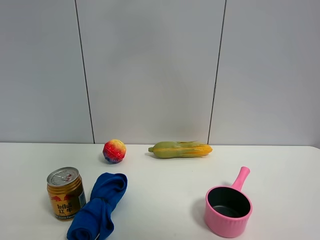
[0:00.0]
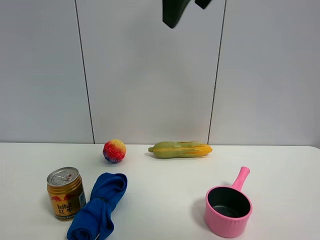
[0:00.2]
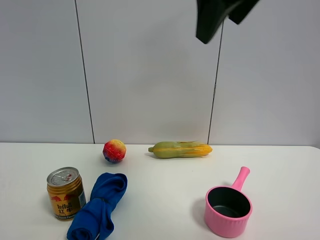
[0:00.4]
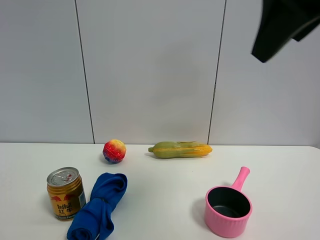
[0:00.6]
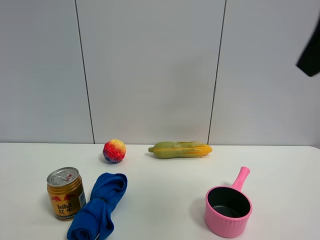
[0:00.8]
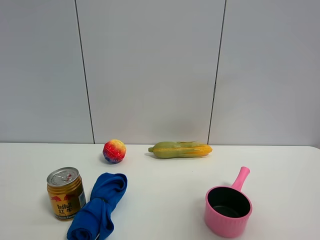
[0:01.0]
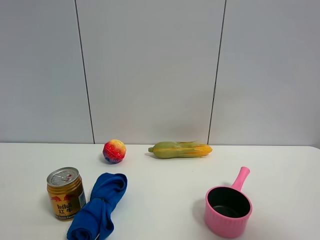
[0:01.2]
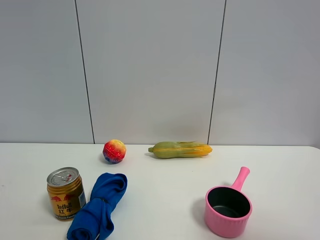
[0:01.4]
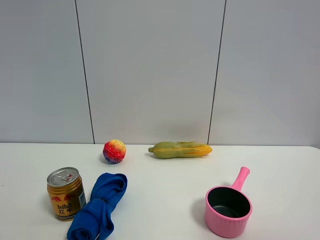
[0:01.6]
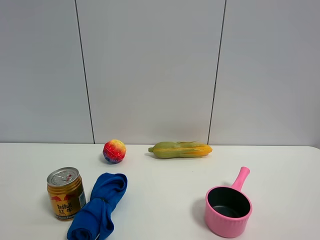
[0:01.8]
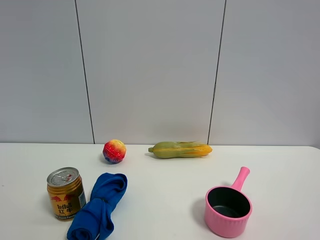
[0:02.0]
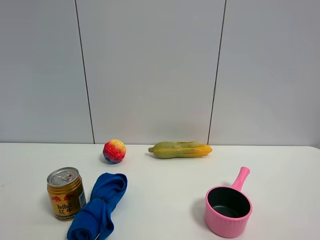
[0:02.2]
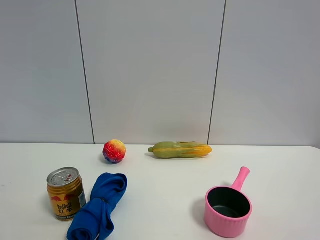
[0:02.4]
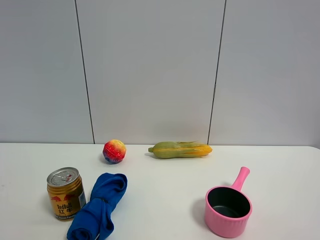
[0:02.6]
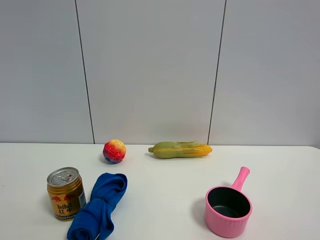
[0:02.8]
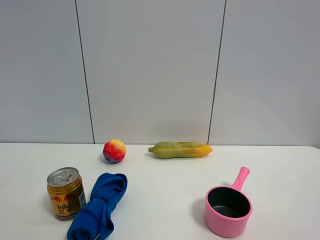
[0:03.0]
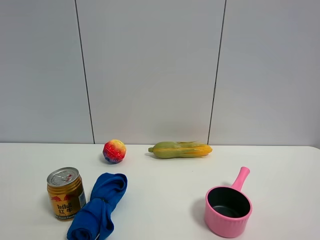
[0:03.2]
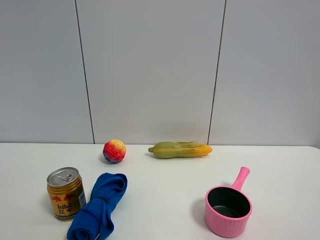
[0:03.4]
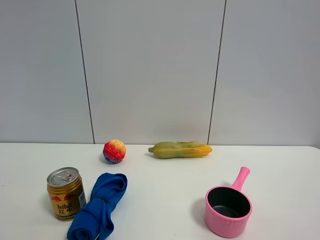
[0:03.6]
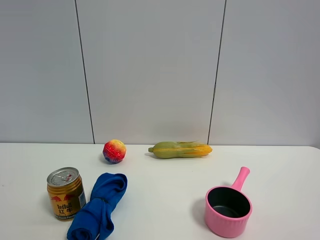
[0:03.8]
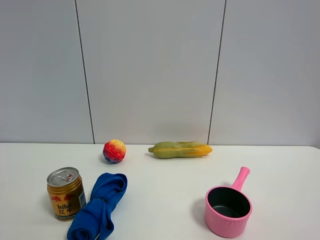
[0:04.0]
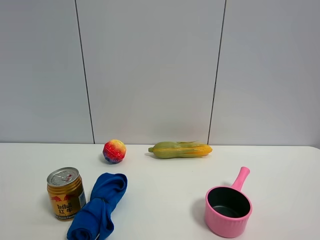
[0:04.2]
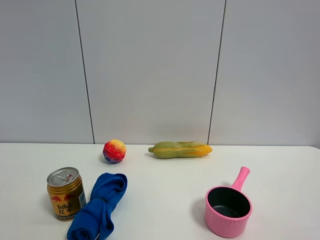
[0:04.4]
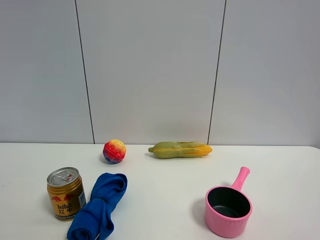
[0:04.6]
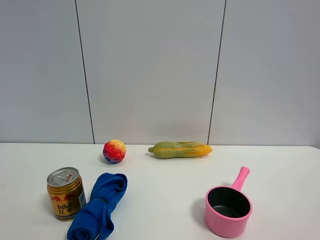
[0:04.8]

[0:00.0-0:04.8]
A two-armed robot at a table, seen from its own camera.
Task of the whole recording: the gripper move the object.
0:00.0 to 0:01.6: The right gripper heads to the right, backward and downward, covering about 40 cm.
0:03.2 to 0:04.8: Both grippers stay put.

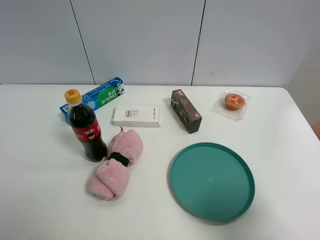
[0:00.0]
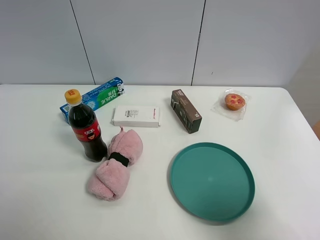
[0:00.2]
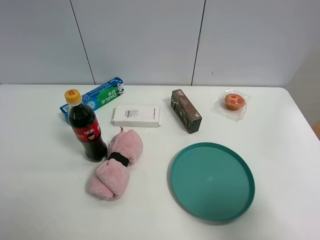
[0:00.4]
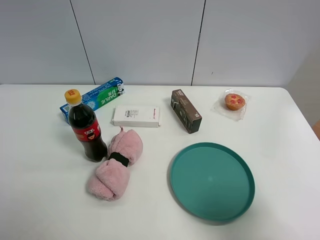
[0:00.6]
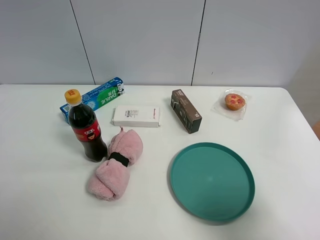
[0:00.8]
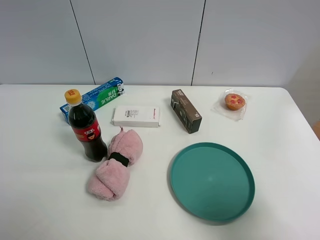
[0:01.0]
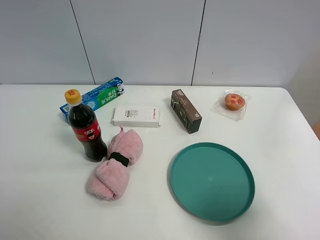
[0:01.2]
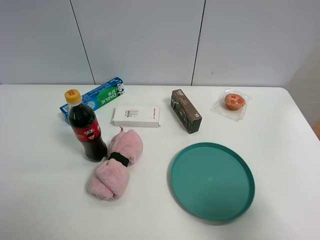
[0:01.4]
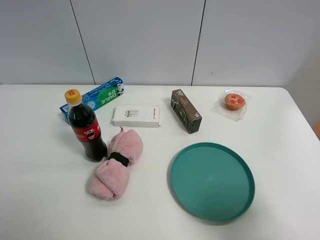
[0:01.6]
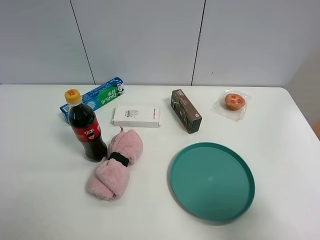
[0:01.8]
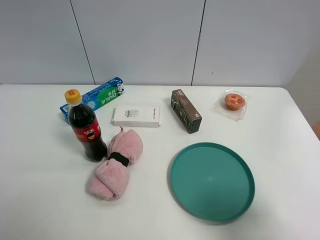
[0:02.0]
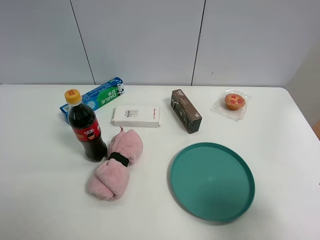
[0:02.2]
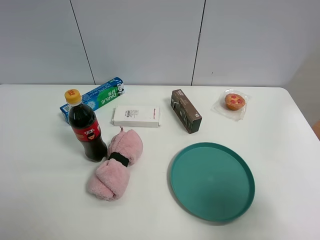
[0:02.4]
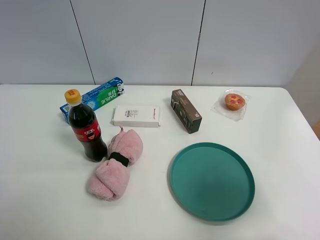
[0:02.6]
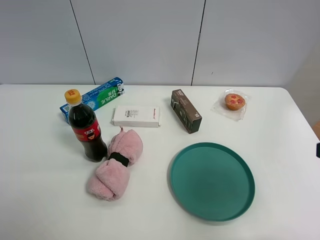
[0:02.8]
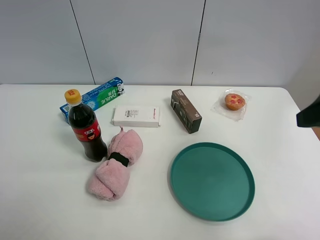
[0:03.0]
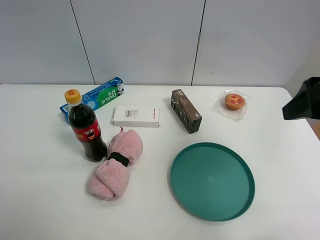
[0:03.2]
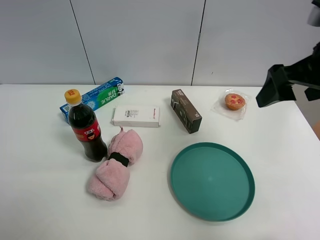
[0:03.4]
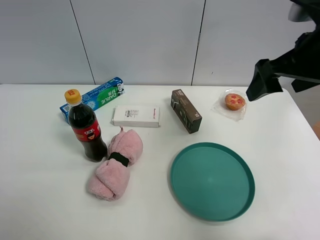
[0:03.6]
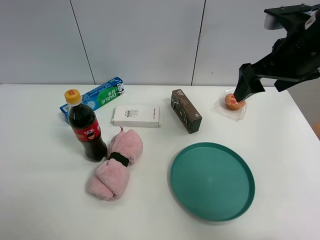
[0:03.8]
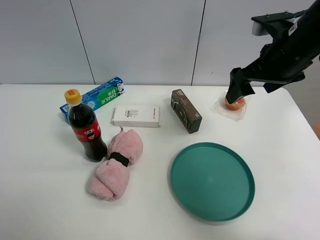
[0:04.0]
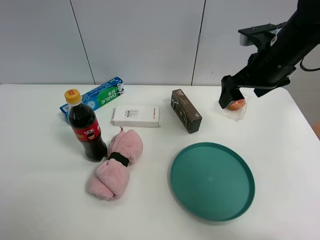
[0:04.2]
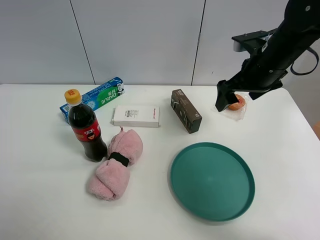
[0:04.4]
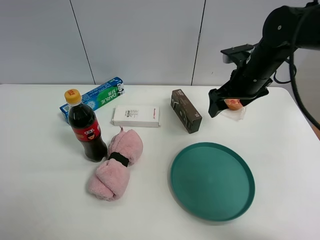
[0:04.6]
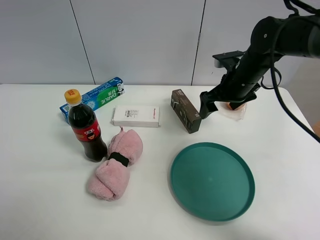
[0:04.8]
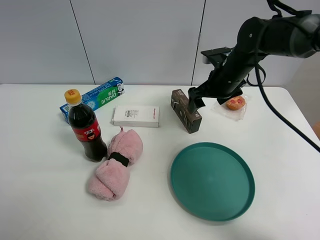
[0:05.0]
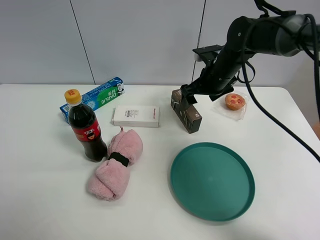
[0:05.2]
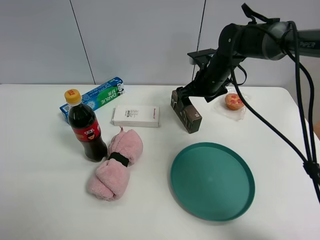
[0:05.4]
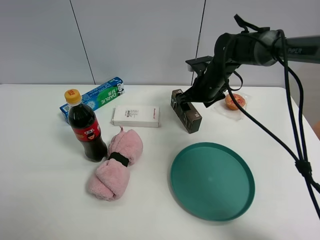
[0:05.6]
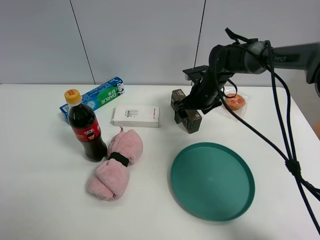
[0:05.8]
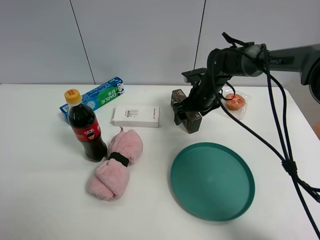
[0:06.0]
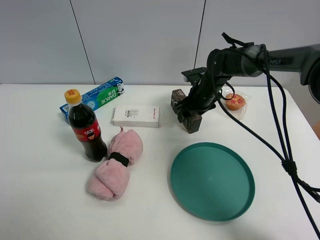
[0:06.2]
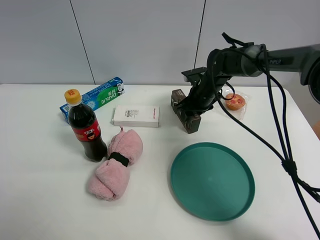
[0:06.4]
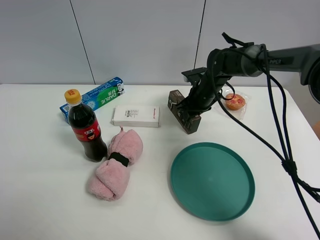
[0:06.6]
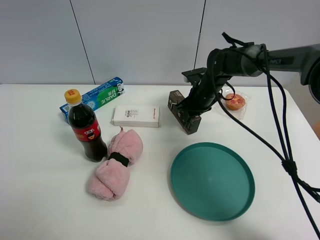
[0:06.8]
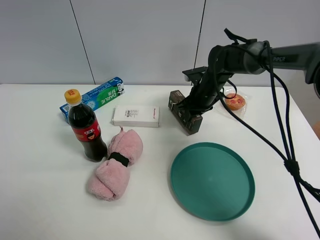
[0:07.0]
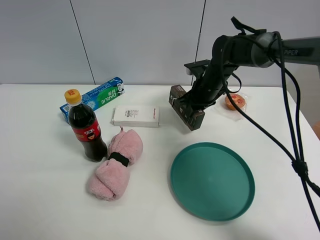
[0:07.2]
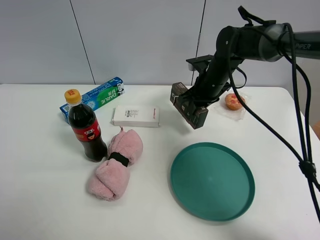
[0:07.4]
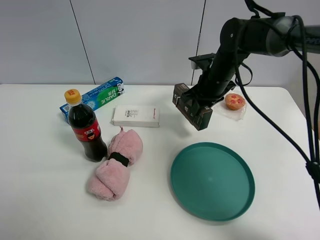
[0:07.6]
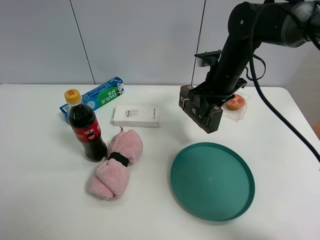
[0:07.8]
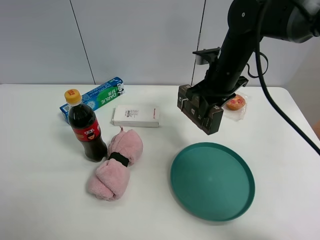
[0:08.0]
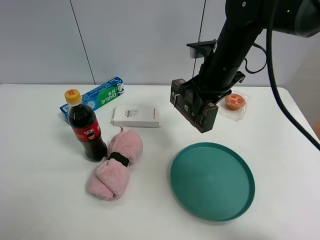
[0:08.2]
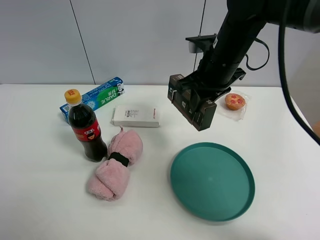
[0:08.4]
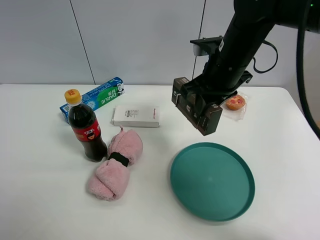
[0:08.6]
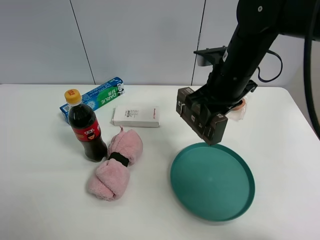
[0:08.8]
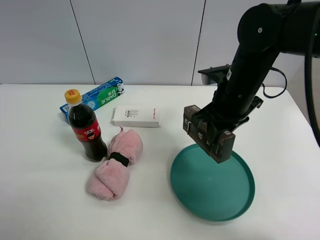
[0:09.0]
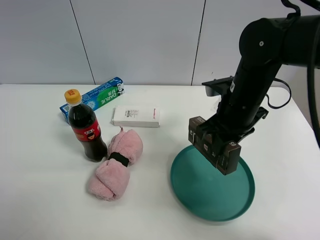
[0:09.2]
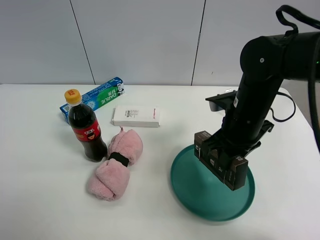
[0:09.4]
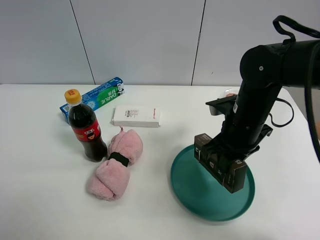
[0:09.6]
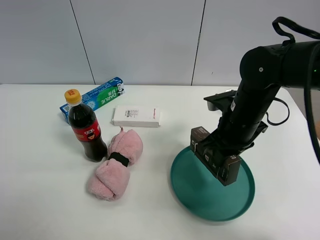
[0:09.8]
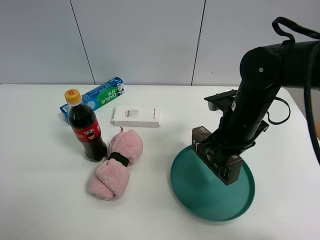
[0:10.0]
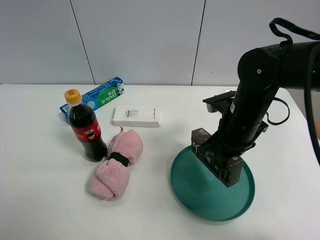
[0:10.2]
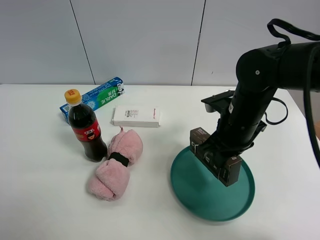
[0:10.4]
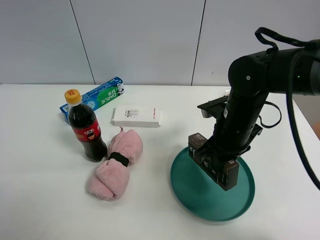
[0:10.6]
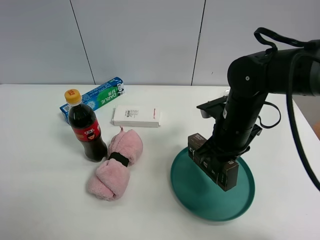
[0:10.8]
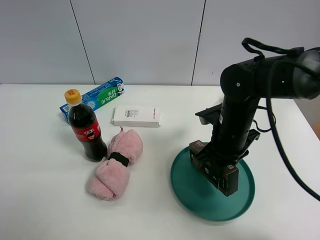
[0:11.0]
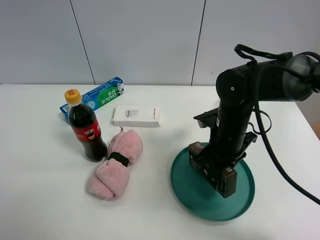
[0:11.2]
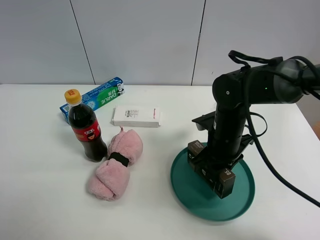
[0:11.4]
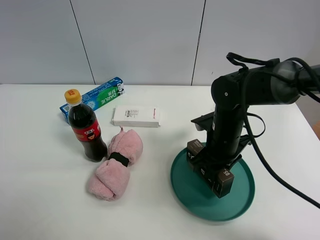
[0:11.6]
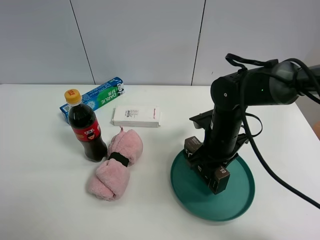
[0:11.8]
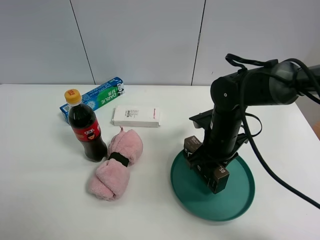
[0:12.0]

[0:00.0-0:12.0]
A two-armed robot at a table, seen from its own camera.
Task of the whole recording: the gripper move the object.
Step, 0:00.0 to 0:06.4: Grasp the brown box with the right gripper.
0:00.0 to 0:01.6: The two grippers keep their place.
0:01.6 to 0:03.0: The right gripper shifts about 15 cm forward and upward.
0:03.0 to 0:04.4: The right gripper is displaced forward and downward by some 20 cm.
0:04.4 to 0:06.0: The right gripper heads downward, forward and to the left, covering some 20 cm.
0:06.0 to 0:07.6: The right gripper moves upward, some 10 cm, and closes its fingers.
0:07.6 to 0:09.0: The right gripper goes about 10 cm backward.
0:09.0 to 0:10.4: The right gripper changes place by approximately 5 cm.
0:10.4 to 0:12.0: The right gripper goes roughly 5 cm downward.

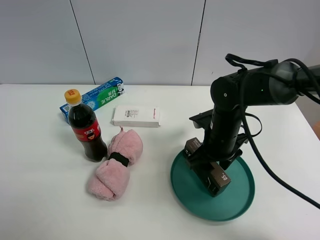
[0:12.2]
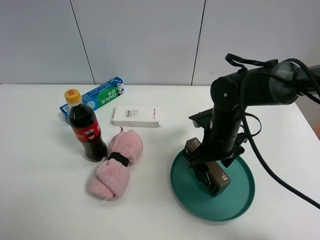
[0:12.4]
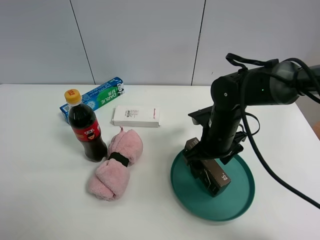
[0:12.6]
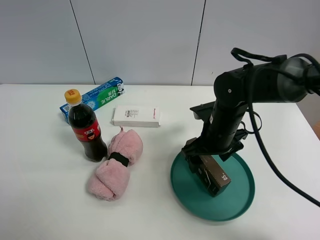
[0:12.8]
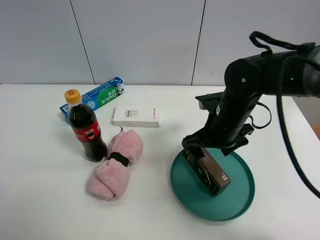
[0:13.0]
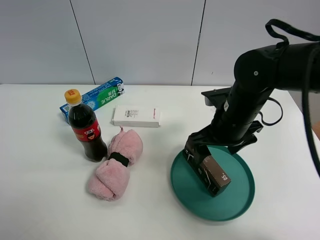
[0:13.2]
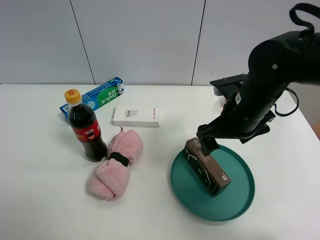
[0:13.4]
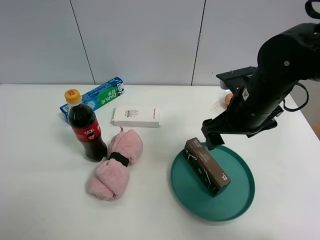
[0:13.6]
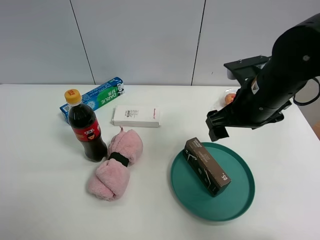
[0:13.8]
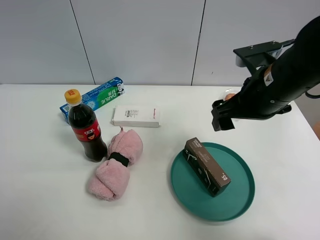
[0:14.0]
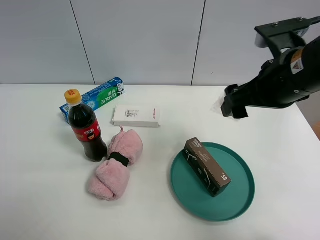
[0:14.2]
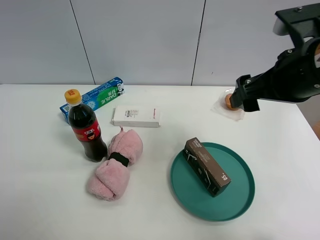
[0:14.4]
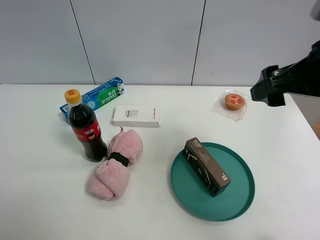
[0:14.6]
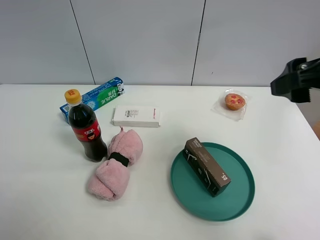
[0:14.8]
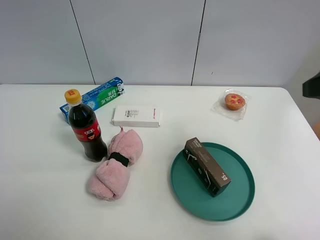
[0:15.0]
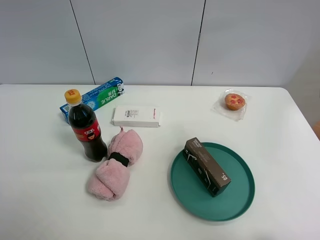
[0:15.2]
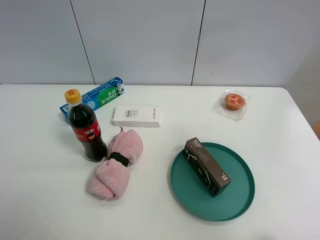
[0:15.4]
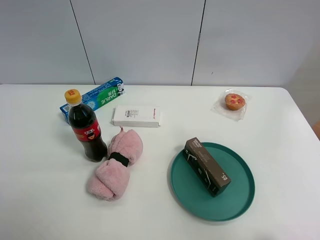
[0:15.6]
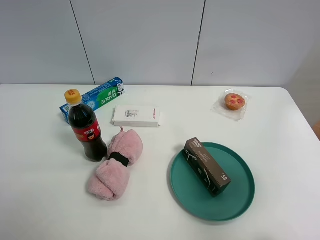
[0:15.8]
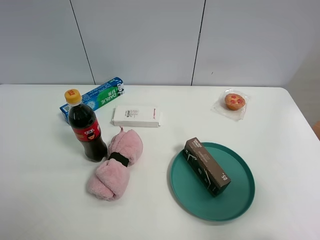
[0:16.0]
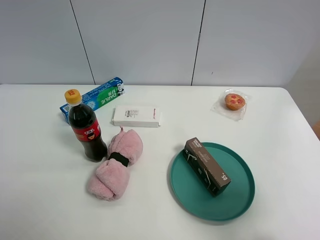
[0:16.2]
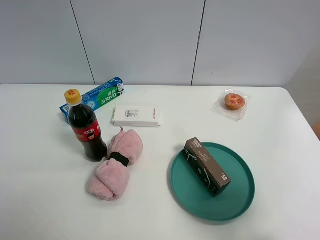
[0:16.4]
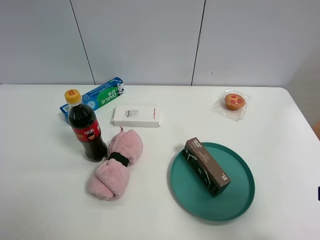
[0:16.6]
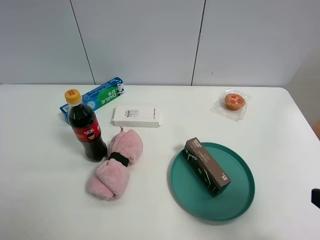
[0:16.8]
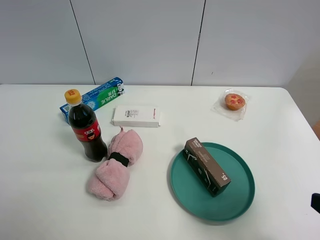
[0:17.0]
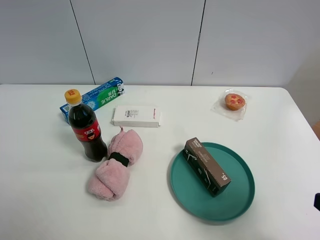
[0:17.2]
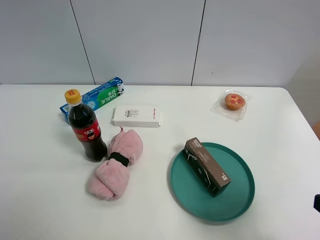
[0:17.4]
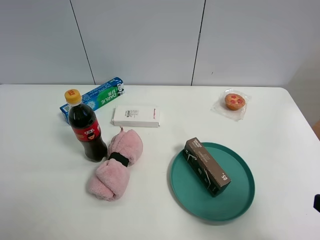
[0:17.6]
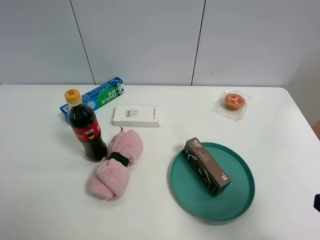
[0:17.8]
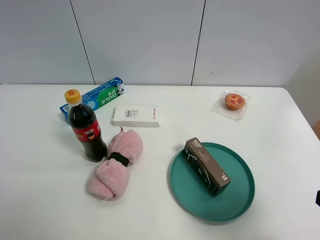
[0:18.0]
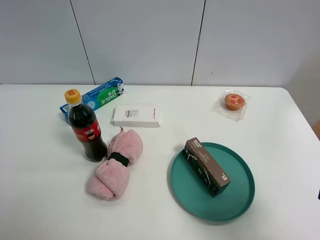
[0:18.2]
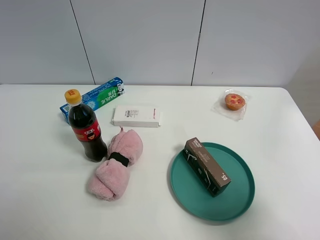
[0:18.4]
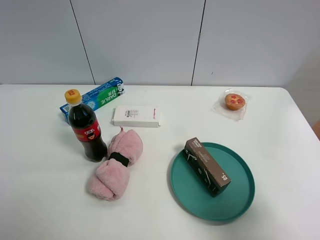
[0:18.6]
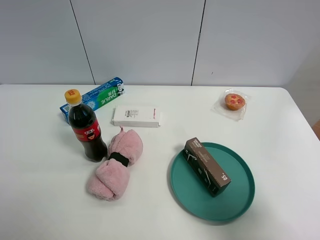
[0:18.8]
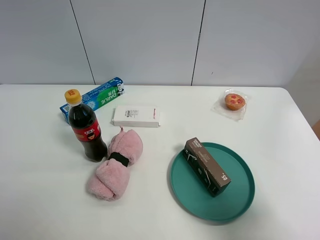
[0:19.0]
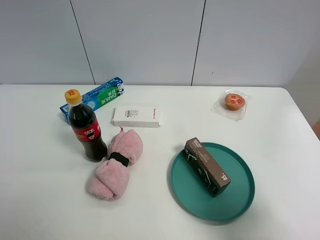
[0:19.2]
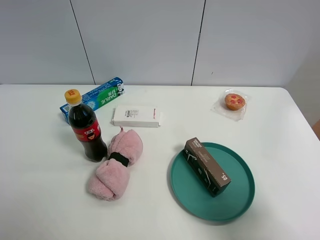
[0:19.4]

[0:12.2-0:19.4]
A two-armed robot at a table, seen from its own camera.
Task of the whole recording: the gripper move the object.
0:12.2 to 0:13.6: The right gripper goes approximately 10 cm upward, and opens.
0:13.6 to 0:15.0: The right gripper goes about 20 cm upward, backward and to the right.
0:15.0 to 0:16.6: The right gripper moves backward and downward, about 15 cm.
